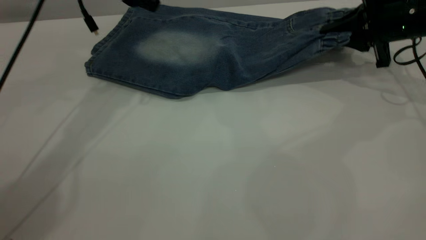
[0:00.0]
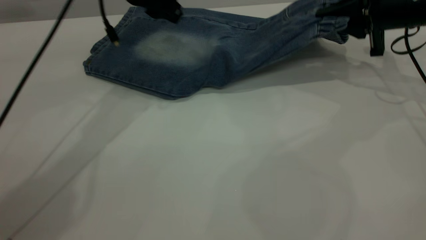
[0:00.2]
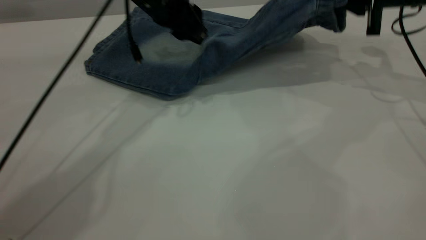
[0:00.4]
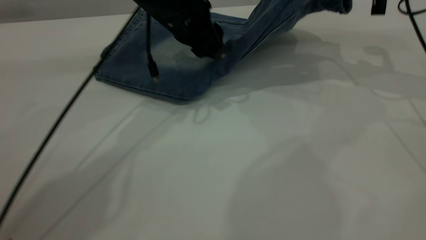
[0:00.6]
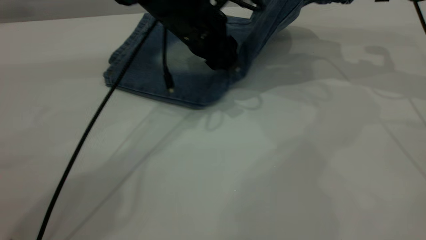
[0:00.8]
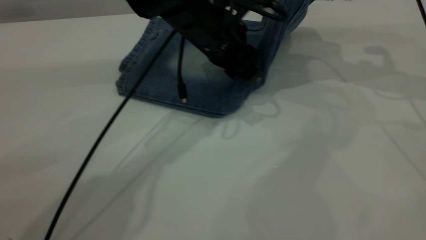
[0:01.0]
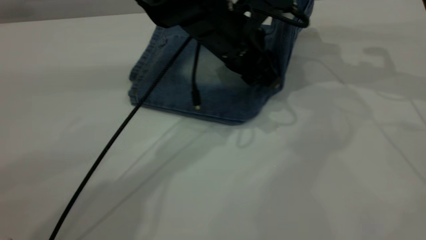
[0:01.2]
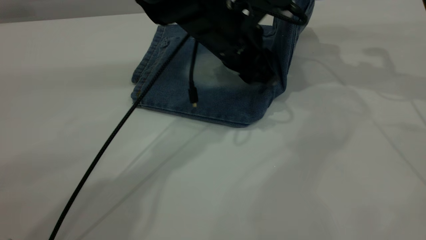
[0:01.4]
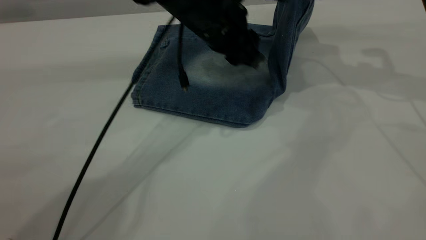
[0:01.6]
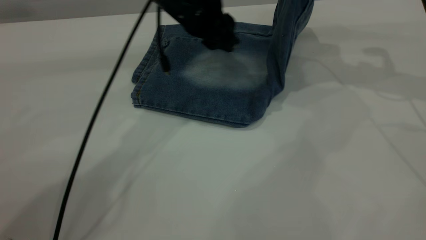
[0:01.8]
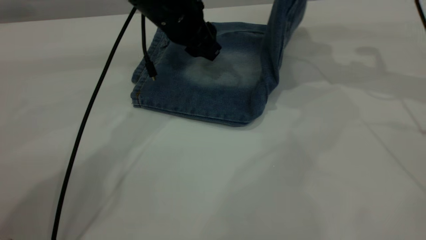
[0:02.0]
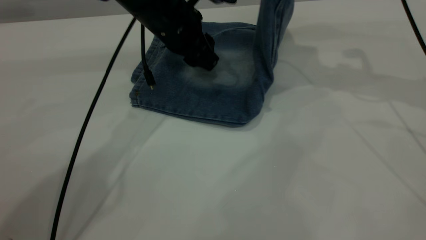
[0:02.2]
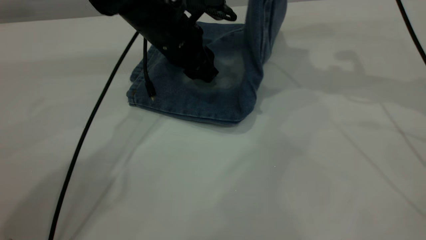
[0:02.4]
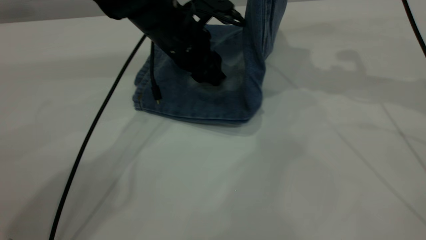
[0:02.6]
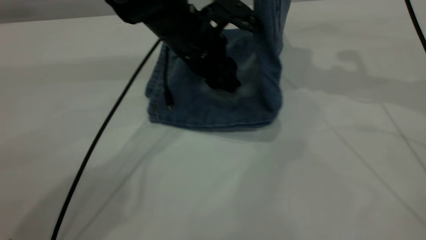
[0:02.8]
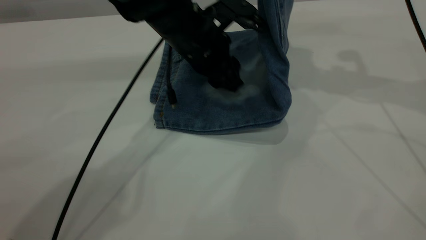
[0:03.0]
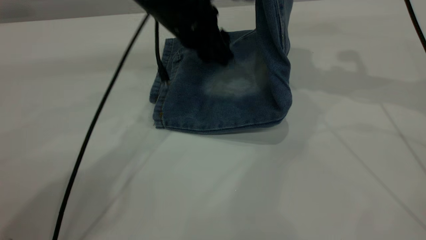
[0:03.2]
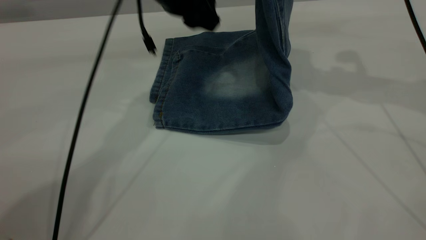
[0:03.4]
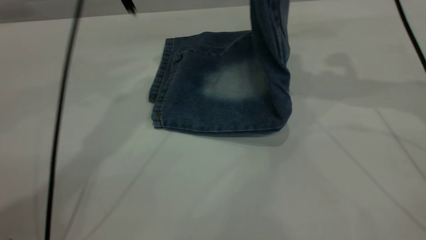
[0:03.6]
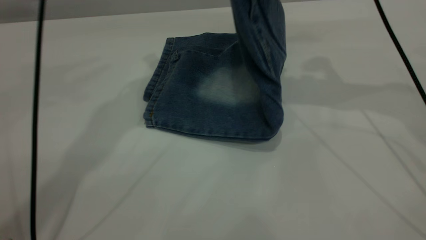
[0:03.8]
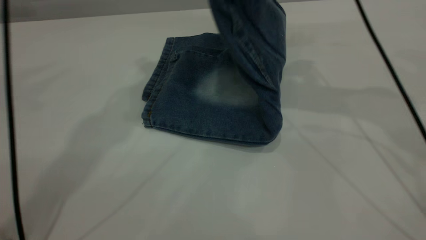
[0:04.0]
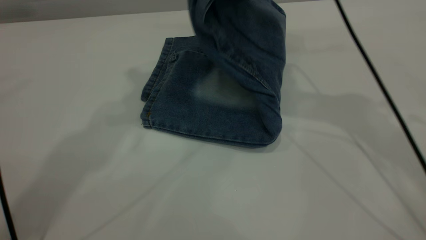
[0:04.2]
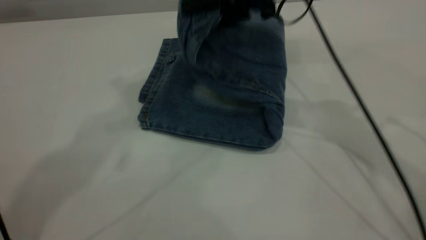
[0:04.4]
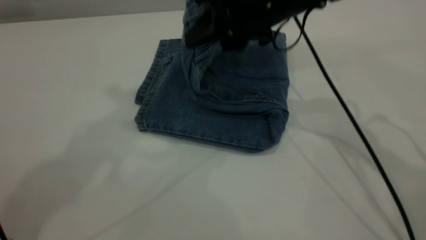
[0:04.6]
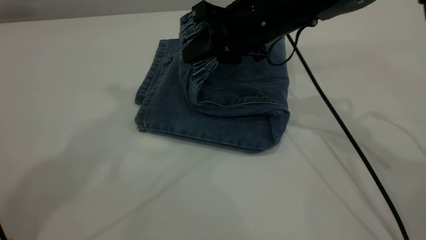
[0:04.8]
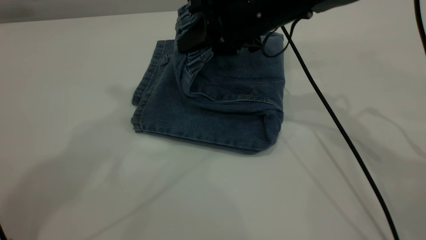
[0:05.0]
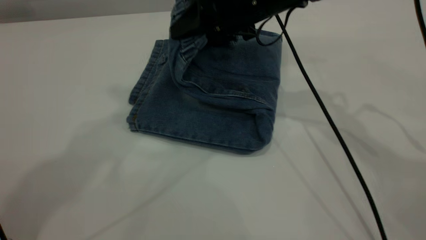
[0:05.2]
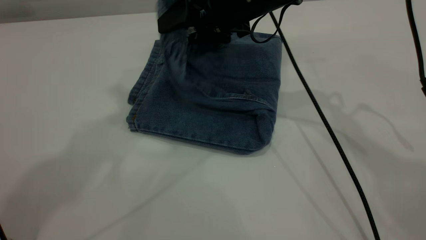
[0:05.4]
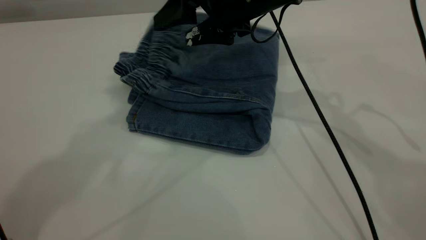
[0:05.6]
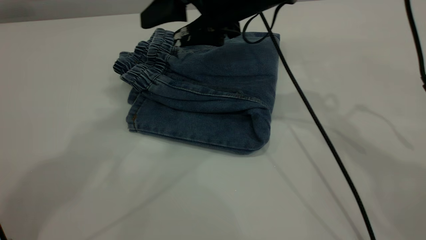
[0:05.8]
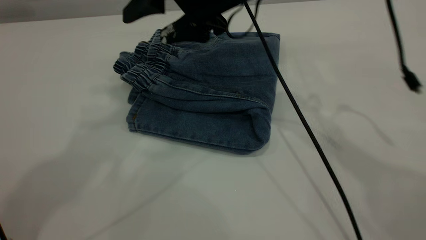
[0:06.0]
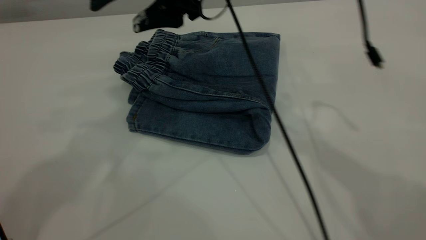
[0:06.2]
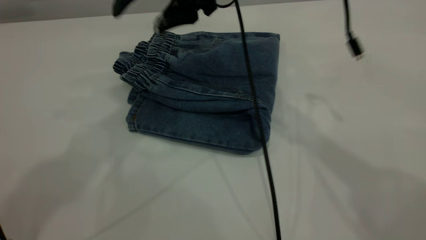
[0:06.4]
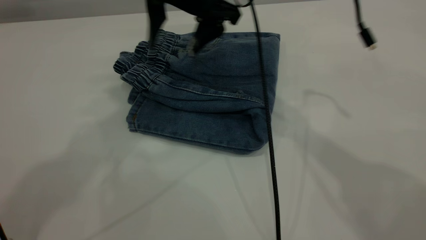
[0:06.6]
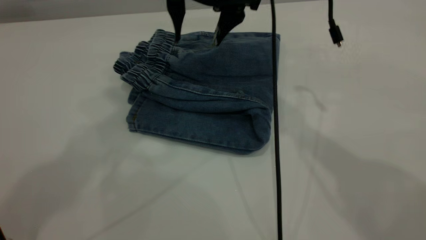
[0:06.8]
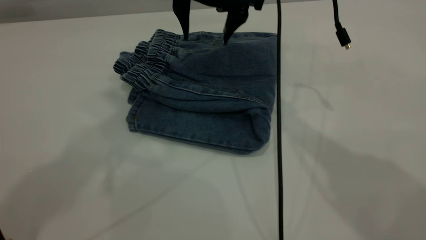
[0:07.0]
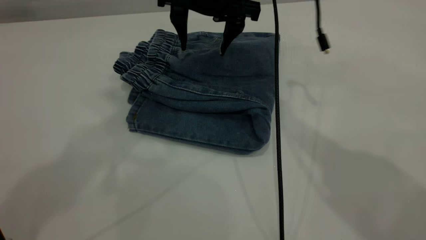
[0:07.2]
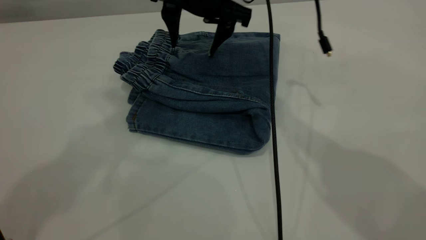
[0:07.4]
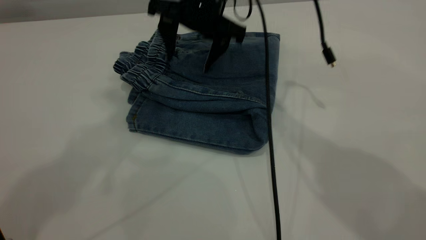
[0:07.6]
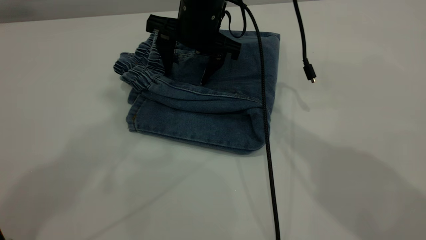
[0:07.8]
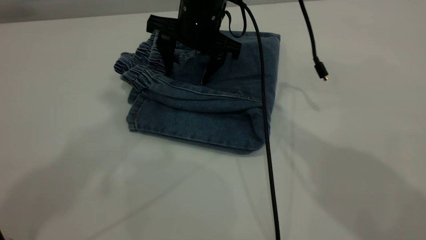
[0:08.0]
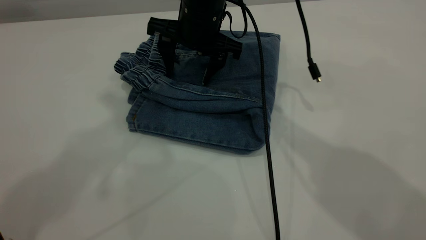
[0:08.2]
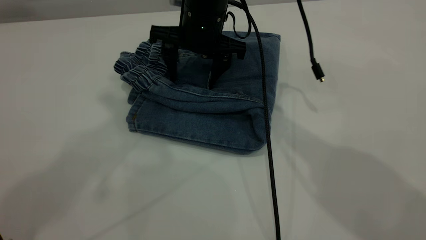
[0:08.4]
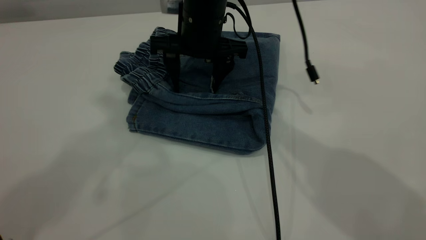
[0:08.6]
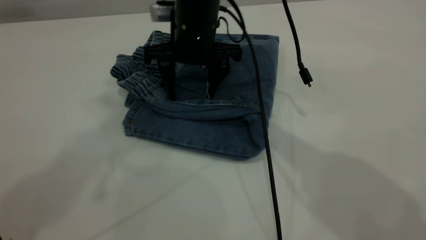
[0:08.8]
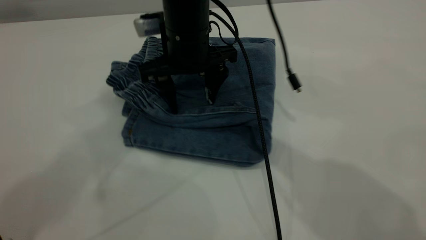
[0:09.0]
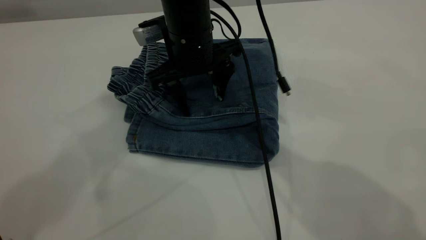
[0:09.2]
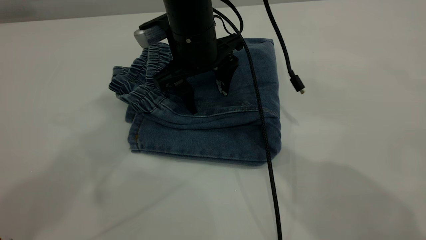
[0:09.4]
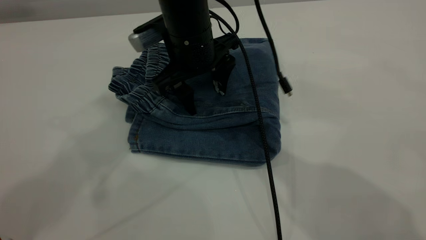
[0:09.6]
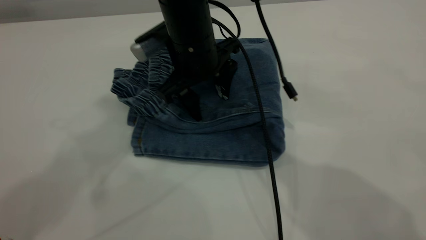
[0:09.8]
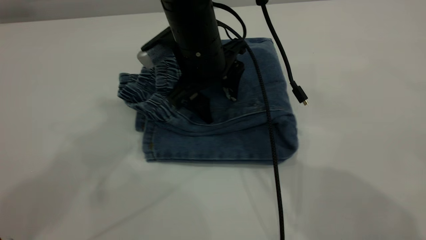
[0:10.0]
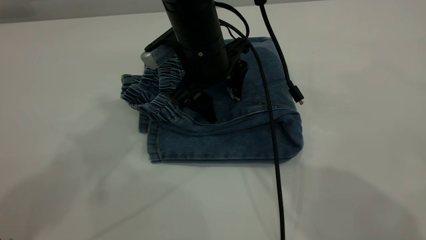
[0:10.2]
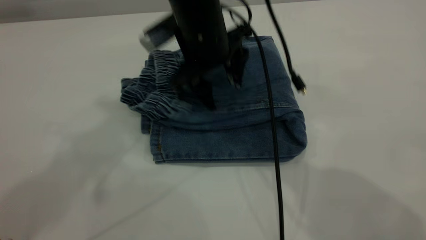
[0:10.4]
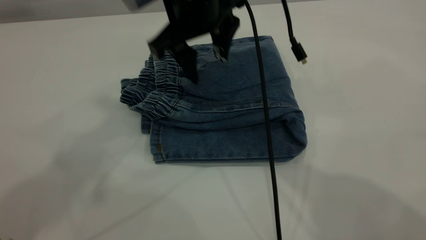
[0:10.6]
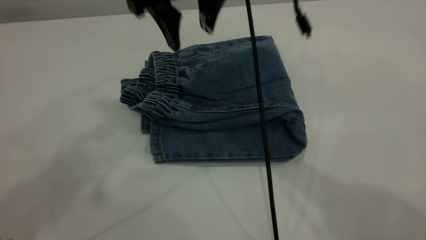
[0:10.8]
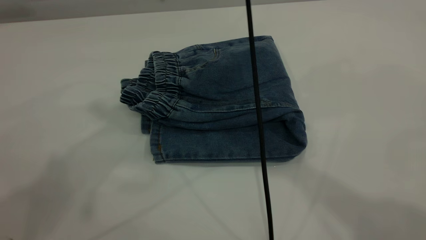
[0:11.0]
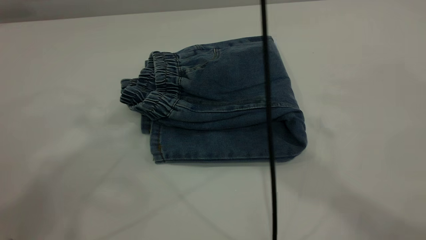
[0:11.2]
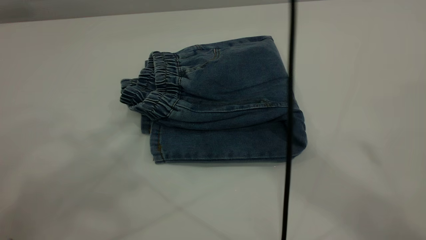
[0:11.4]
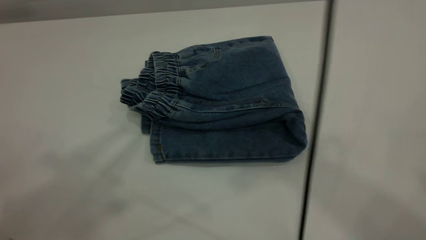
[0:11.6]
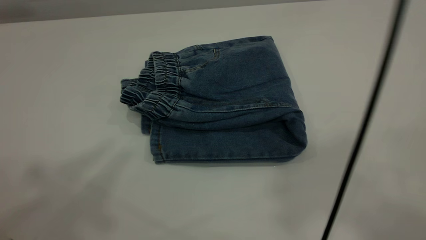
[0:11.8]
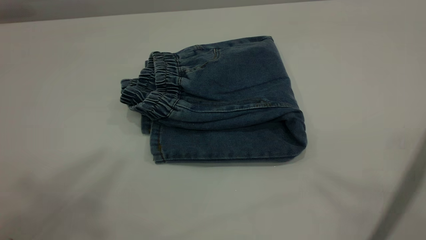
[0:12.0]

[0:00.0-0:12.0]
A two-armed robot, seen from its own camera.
Step, 0:00.0 to 0:05.8: Fold your pants from right to left.
0:00.0 to 0:01.6: The left gripper moves to the right and backward, some 15 cm, while the right gripper is displaced upward by about 10 cm.
0:01.6 to 0:03.0: The right gripper moves to the left, about 5 cm.
0:03.0 to 0:04.4: The right gripper heads to the left and downward, covering some 15 cm. The left gripper goes about 35 cm upward.
0:04.4 to 0:06.0: The right gripper shifts roughly 5 cm to the left, and opens up.
0:06.0 to 0:07.6: The right gripper is displaced forward by some 5 cm.
0:07.6 to 0:09.0: The right gripper changes place by about 5 cm.
0:10.4 to 0:12.0: The right gripper shifts approximately 50 cm upward, backward and to the right, and closes up, while the left gripper heads backward and upward, covering approximately 15 cm.
